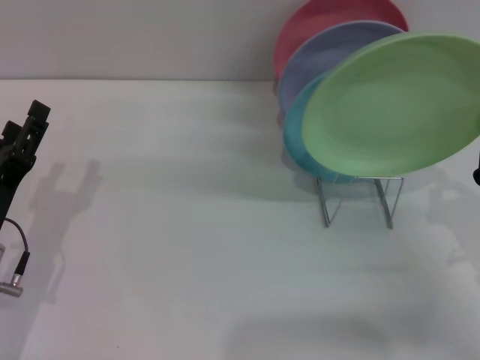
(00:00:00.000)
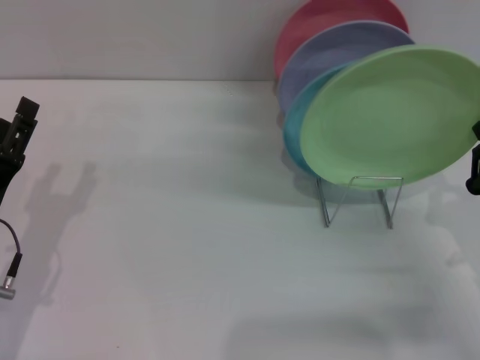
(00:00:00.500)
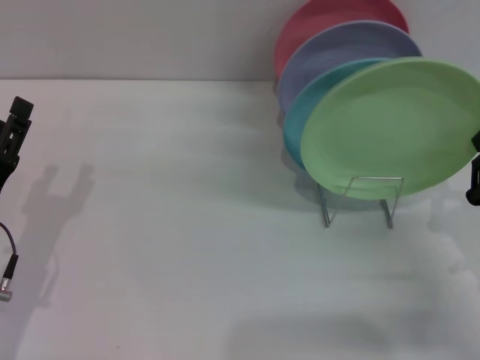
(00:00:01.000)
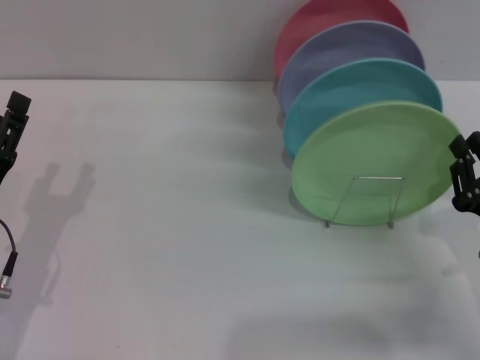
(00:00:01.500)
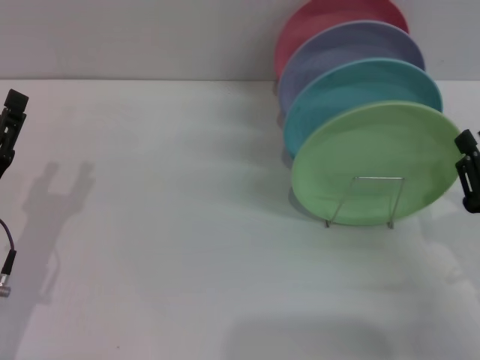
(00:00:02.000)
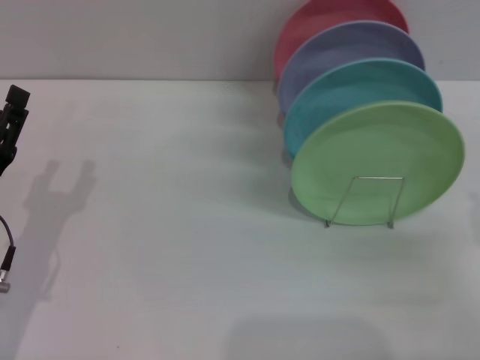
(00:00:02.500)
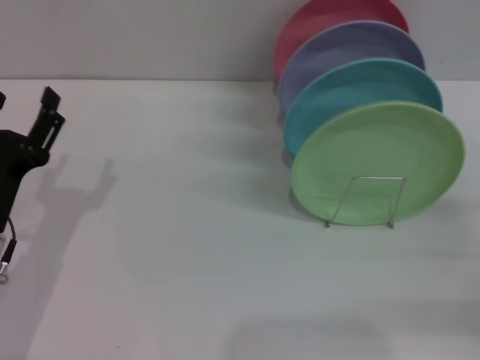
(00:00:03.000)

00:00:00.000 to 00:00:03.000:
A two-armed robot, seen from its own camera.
Task of the whole recording: Grip the plate with one hand, pass it to the other, then set it on the shelf.
Step, 00:00:00.000 to 00:00:02.000: Place the plate on the shelf with the right gripper.
00:00:00.000 to 00:00:01.500: The grippers stay close to where they were, moving slightly.
00:00:01.500 to 00:00:03.000: The right gripper travels to the right by about 10 cm, and opens.

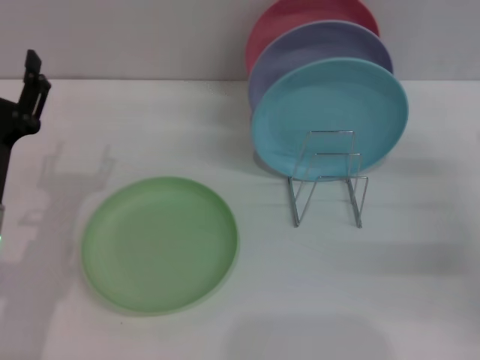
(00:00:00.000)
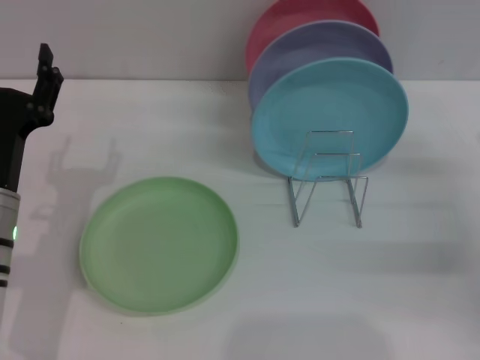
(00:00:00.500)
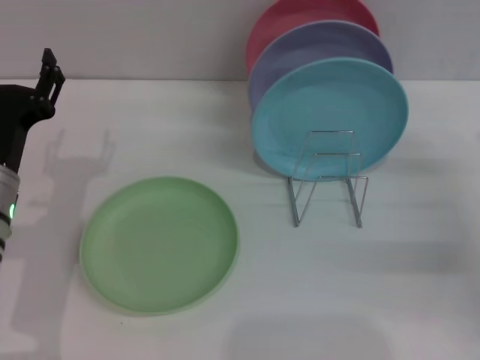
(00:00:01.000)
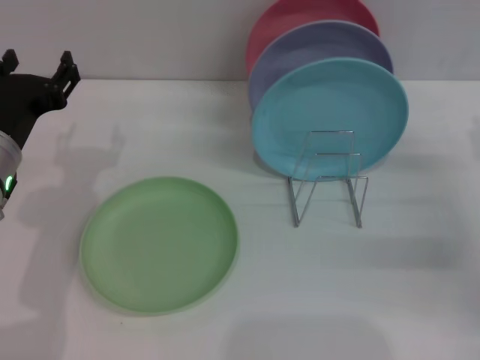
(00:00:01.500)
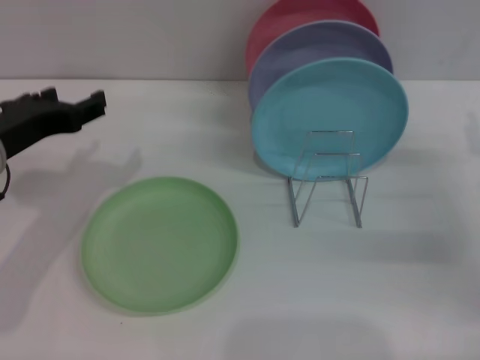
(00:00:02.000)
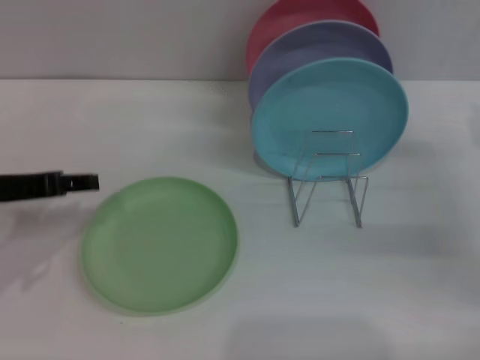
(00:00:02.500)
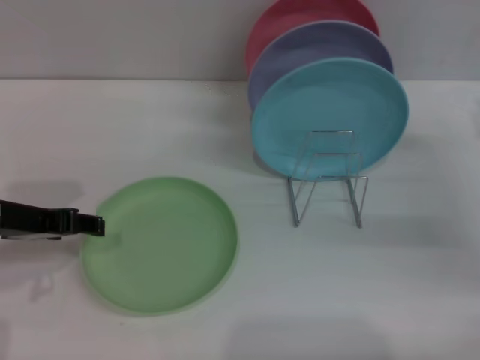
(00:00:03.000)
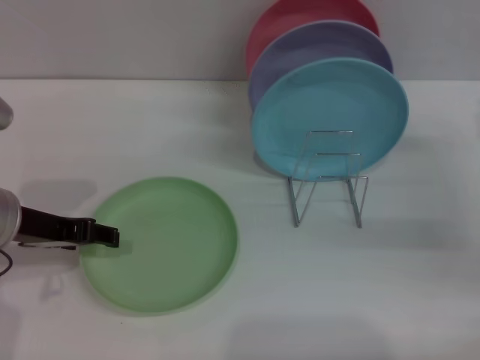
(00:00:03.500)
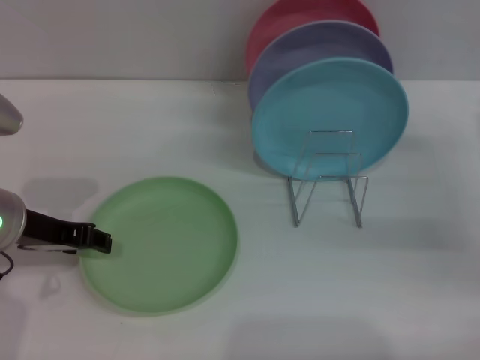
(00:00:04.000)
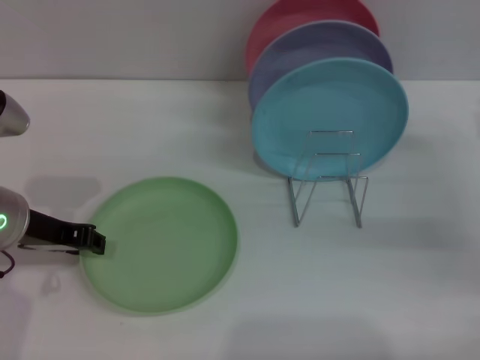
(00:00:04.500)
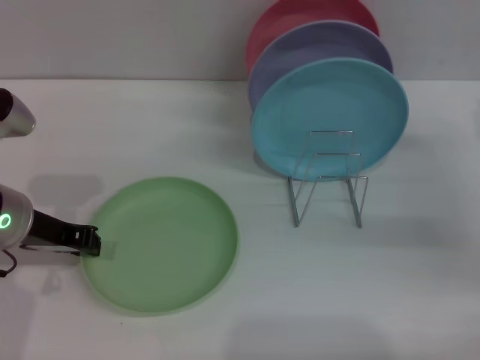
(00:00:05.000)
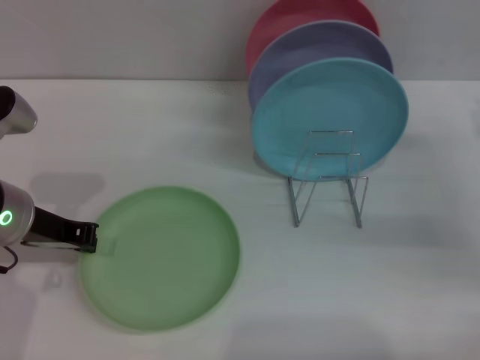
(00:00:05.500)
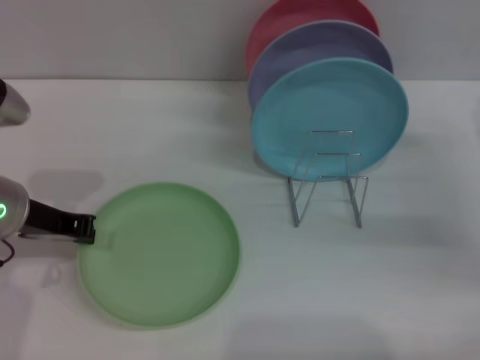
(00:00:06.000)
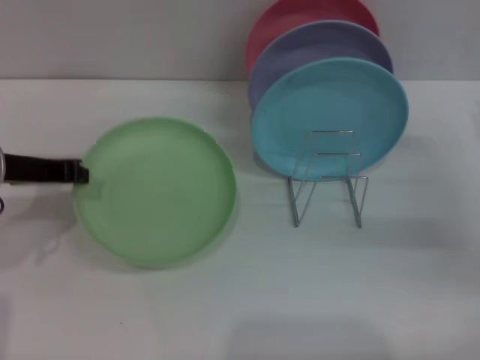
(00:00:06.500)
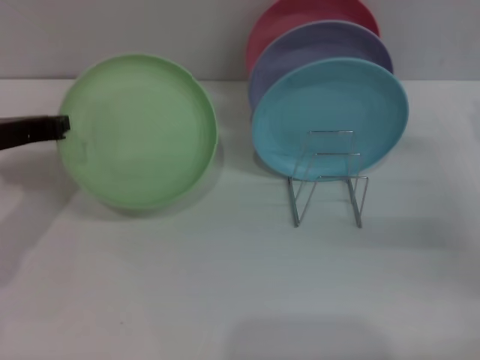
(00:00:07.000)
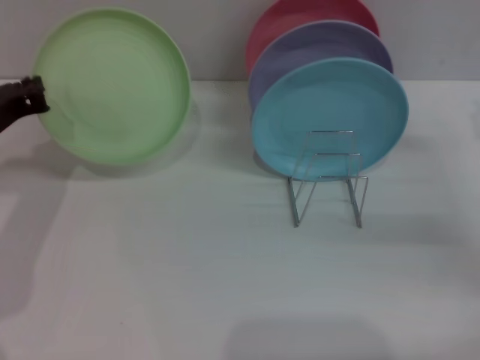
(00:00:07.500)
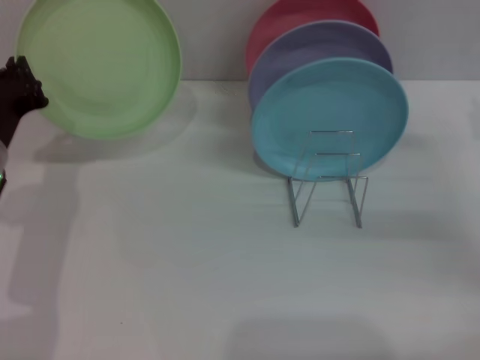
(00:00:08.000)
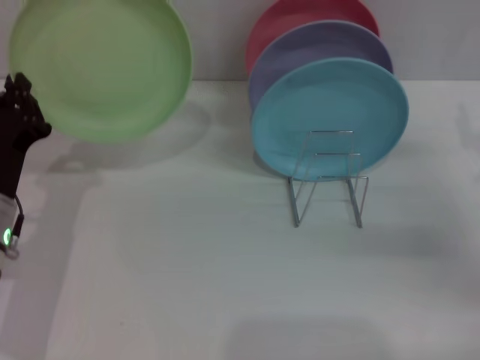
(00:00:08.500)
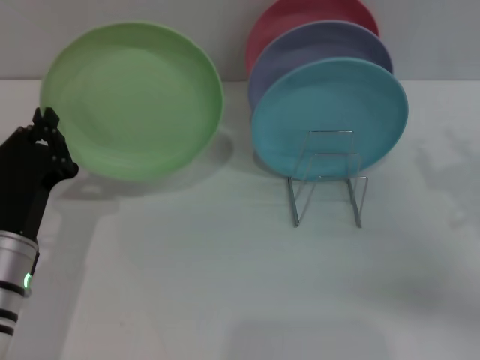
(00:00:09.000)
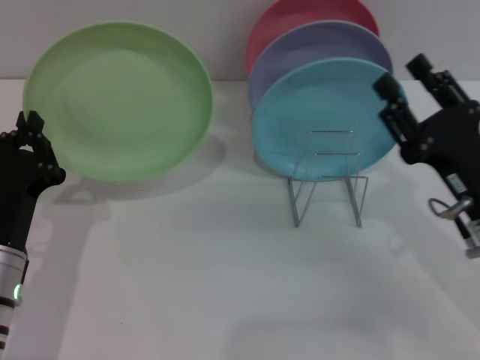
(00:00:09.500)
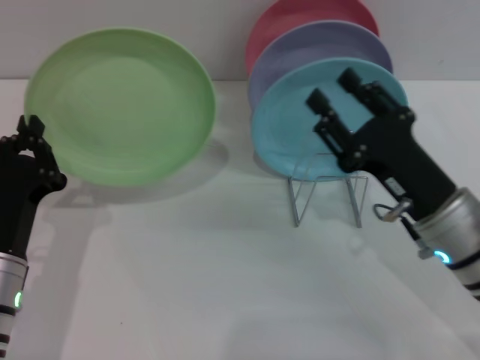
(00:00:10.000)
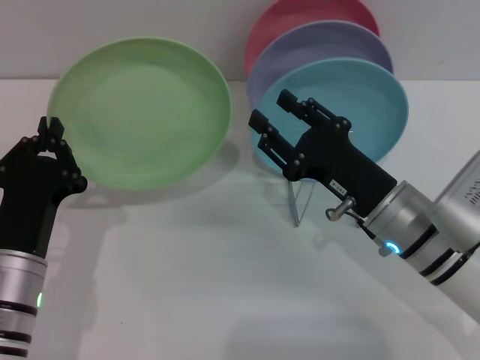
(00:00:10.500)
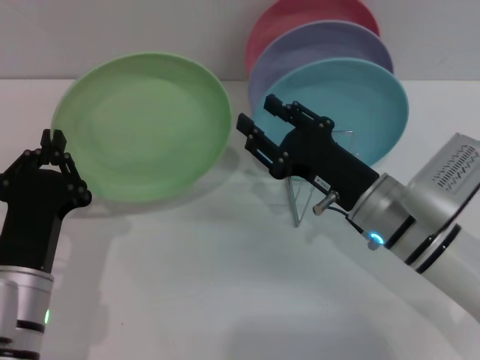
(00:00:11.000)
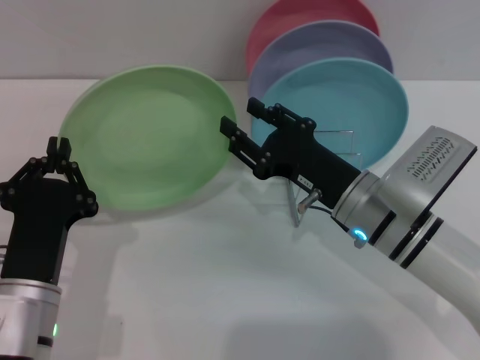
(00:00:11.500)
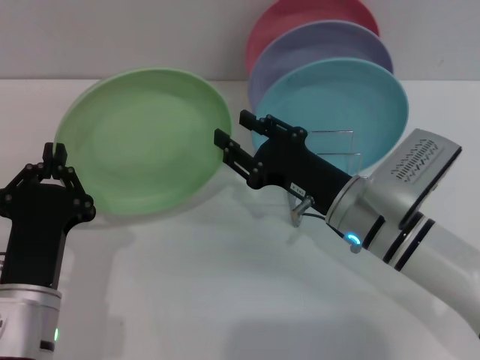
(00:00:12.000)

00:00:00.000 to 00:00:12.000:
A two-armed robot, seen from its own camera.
Task of the whole recording: Grip the plate with one hand, pass it to the other, then set it on the shelf.
Step, 00:00:00.000 to 00:00:07.000: Pick up the plate with the left gripper.
00:00:00.000 to 00:00:02.000: The left gripper heads upward, covering approximately 10 cm.
00:00:04.000 to 00:00:06.000: The left gripper closes.
00:00:08.000 to 00:00:10.000: The right gripper travels to the left by some 15 cm; the left gripper travels backward and downward by roughly 10 cm.
00:00:10.000 to 00:00:12.000: The left gripper ends up about 5 cm from where it was. Meanwhile the right gripper moves to the left, some 5 cm.

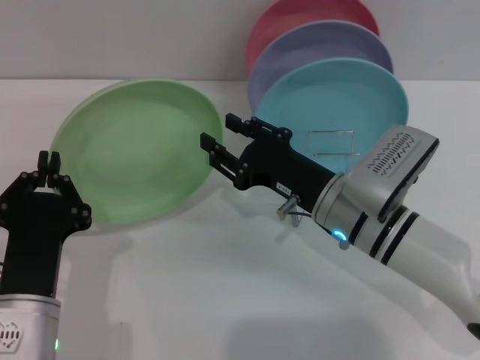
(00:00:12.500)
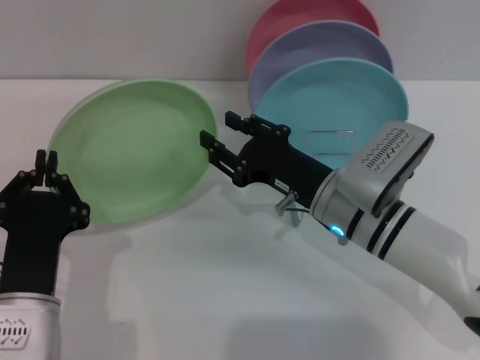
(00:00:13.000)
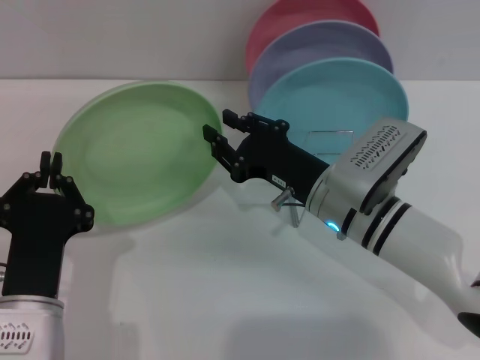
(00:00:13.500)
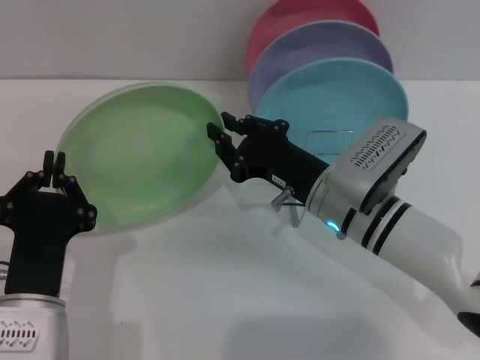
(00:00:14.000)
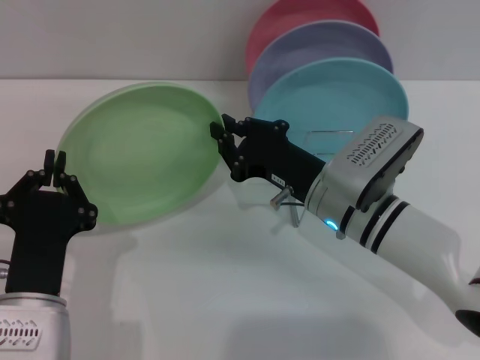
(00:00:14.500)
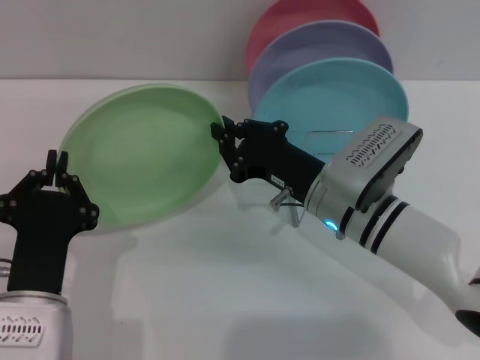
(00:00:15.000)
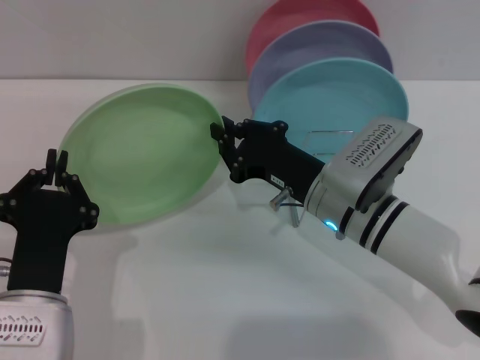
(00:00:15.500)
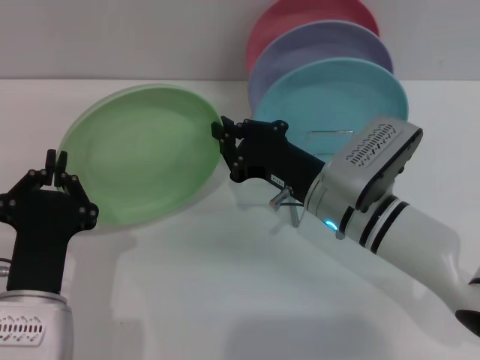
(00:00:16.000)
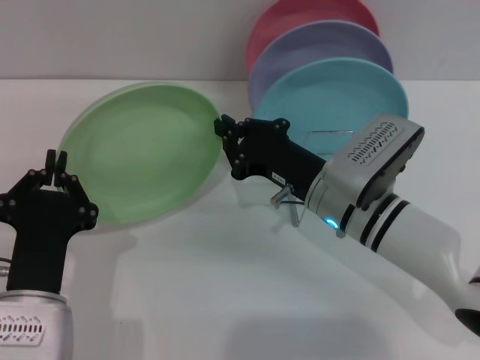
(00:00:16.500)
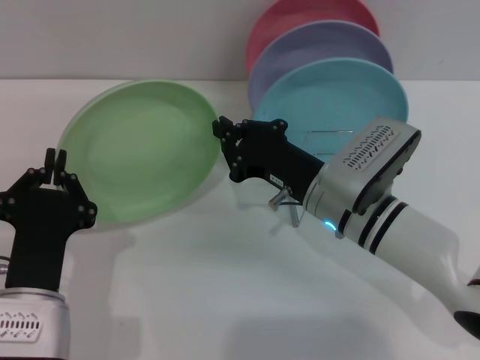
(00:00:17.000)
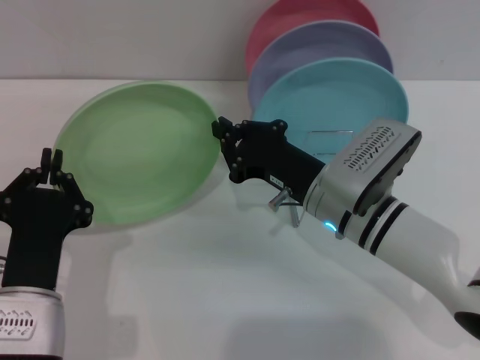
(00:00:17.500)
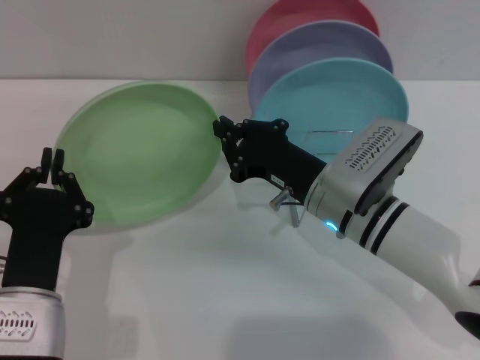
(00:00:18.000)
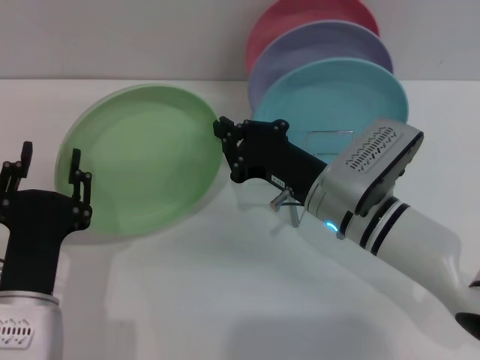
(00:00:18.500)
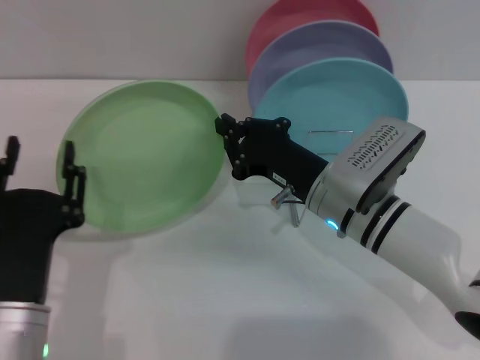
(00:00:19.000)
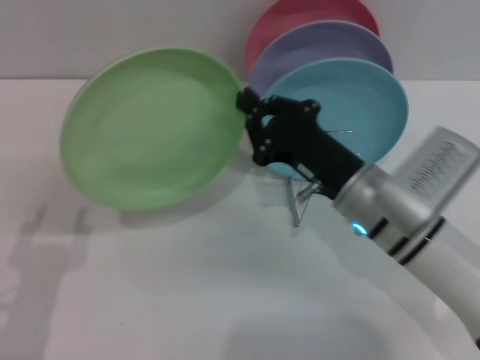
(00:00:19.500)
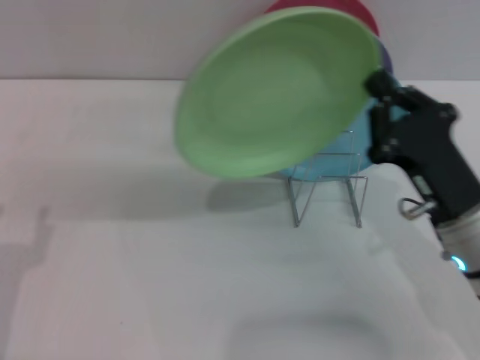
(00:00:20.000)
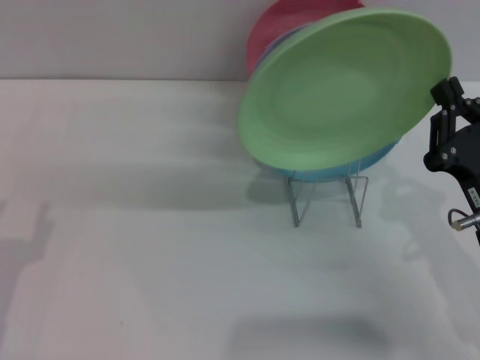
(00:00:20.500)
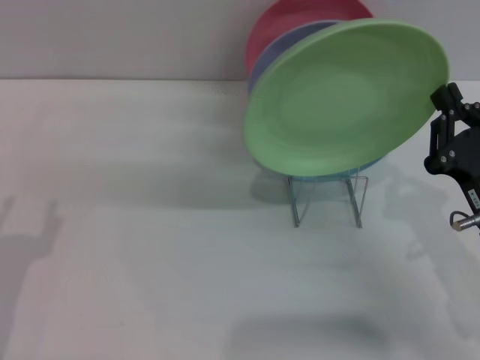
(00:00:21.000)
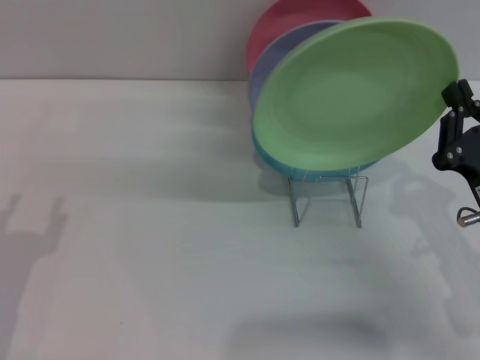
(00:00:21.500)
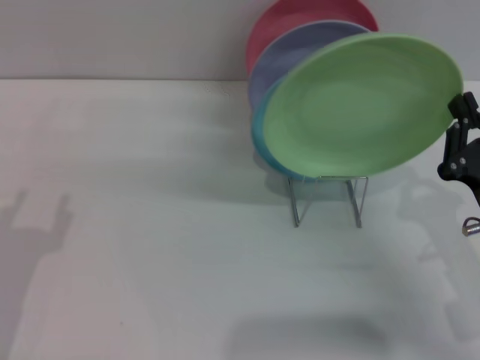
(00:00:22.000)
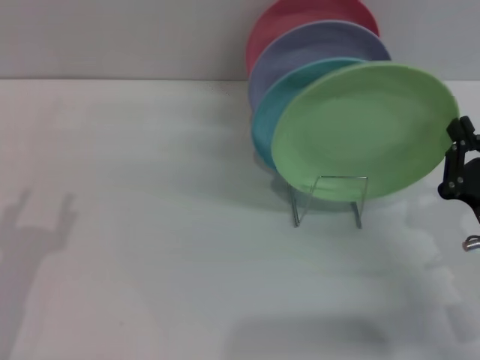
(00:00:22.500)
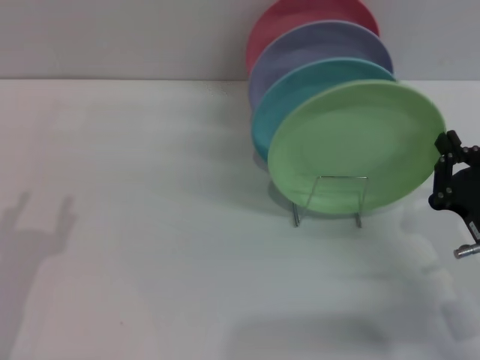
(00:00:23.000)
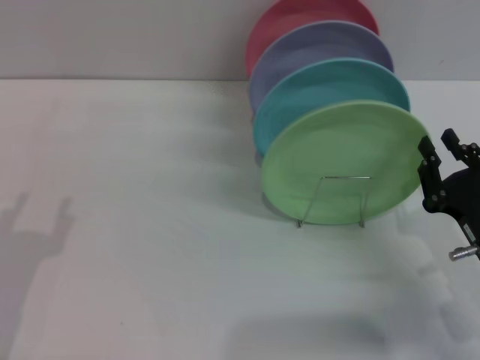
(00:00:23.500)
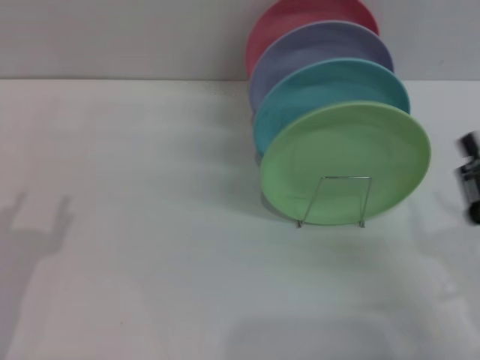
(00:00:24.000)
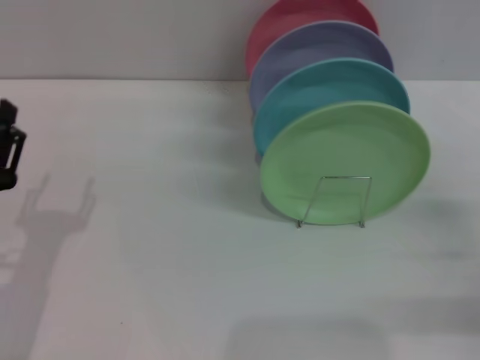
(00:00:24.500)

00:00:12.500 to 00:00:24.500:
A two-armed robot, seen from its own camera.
Task of the whole recording: Grip the plate with one hand, pass it to the other, then set it on the shelf.
Step, 00:00:12.500 to 00:00:19.000: Pass the plate from the left gripper to the right gripper.
Step, 00:00:19.500 to 00:00:23.500: Place the plate on the shelf with the right gripper.
00:00:12.500 to 00:00:14.500: The right gripper closes up.
00:00:14.500 to 00:00:16.500: Both grippers stay about where they are.
00:00:16.500 to 00:00:18.500: The left gripper opens its fingers.
00:00:18.500 to 00:00:20.500: The left gripper is displaced to the left by about 10 cm, and opens its fingers. Meanwhile the right gripper moves to the right and backward, some 15 cm.
00:00:20.500 to 00:00:22.500: There are only small adjustments of the grippers.
00:00:22.500 to 00:00:24.500: The right gripper travels to the right by approximately 10 cm, and opens.
